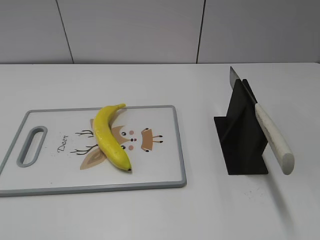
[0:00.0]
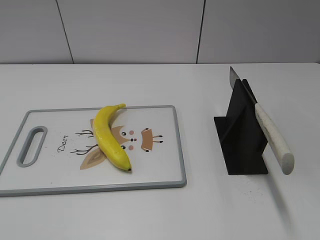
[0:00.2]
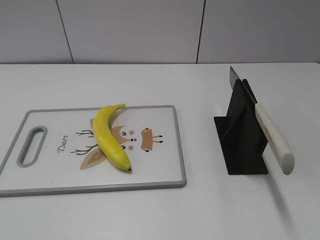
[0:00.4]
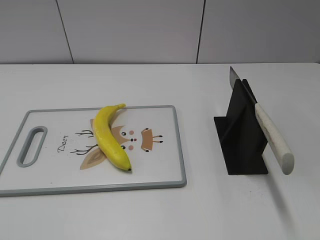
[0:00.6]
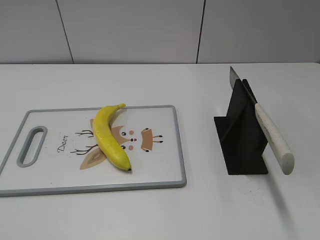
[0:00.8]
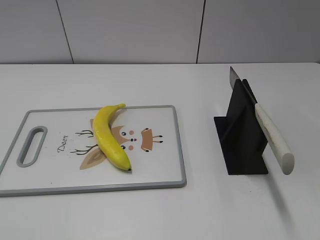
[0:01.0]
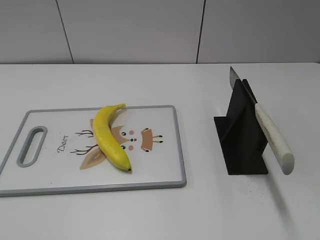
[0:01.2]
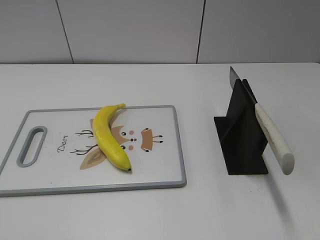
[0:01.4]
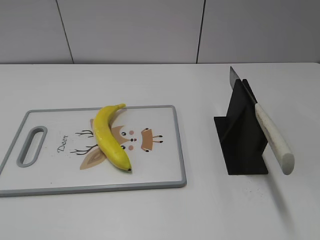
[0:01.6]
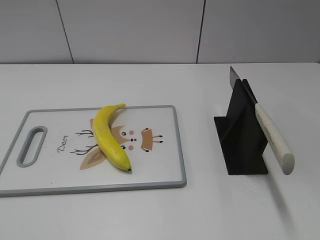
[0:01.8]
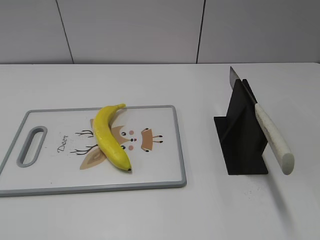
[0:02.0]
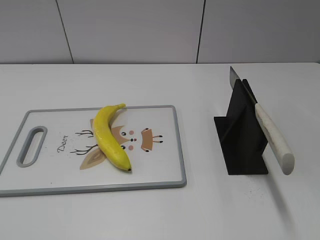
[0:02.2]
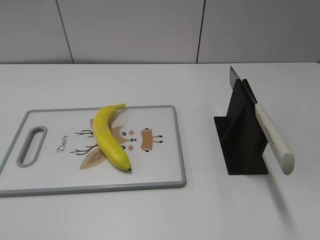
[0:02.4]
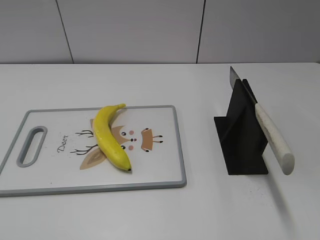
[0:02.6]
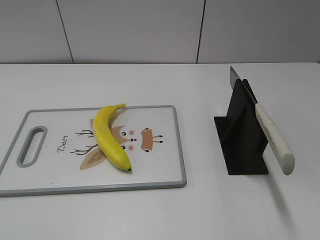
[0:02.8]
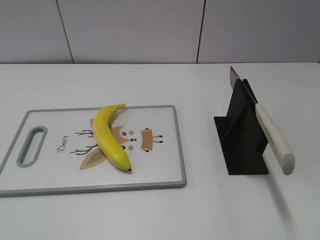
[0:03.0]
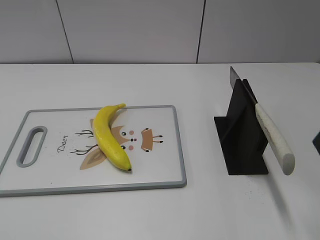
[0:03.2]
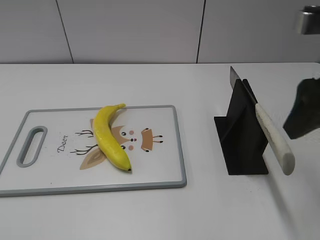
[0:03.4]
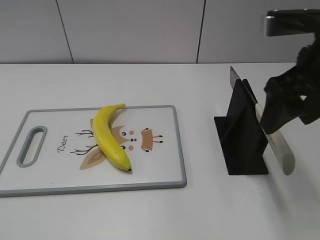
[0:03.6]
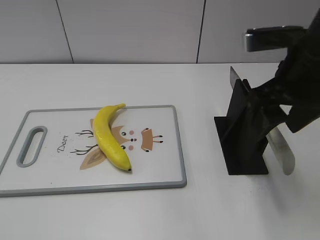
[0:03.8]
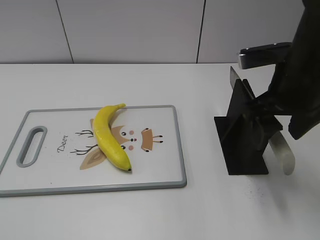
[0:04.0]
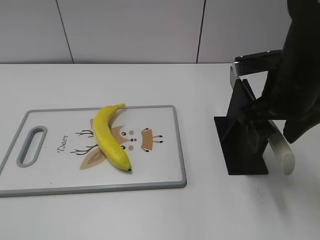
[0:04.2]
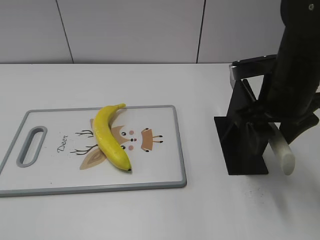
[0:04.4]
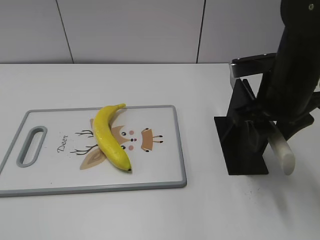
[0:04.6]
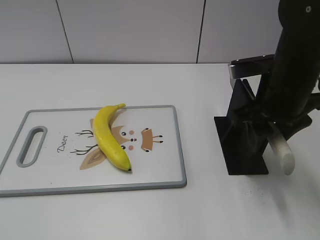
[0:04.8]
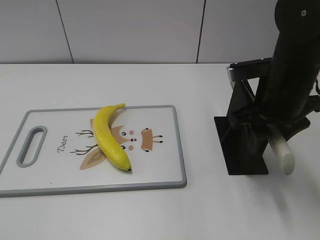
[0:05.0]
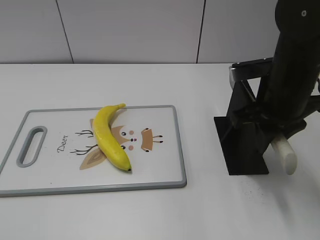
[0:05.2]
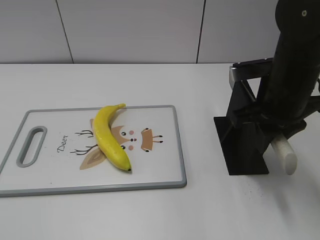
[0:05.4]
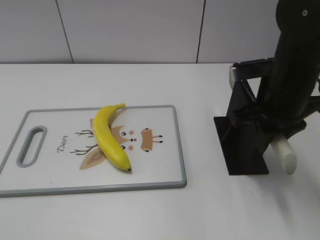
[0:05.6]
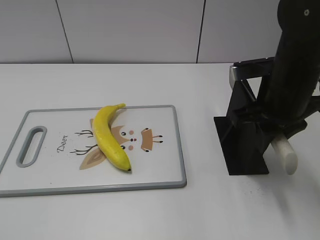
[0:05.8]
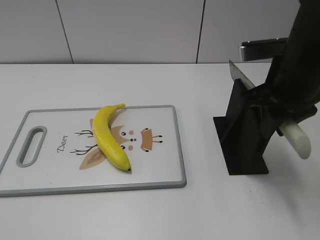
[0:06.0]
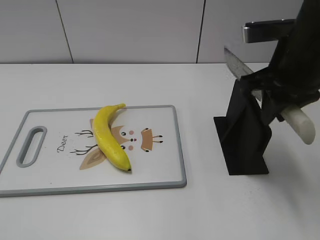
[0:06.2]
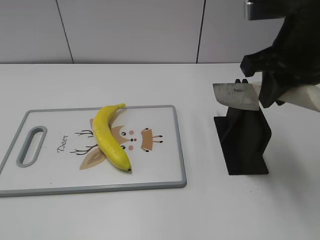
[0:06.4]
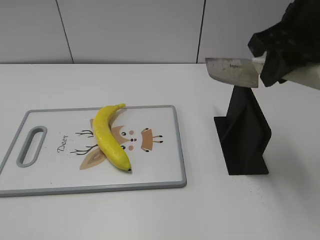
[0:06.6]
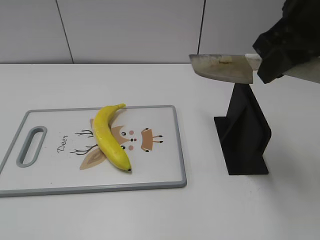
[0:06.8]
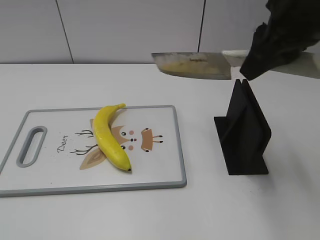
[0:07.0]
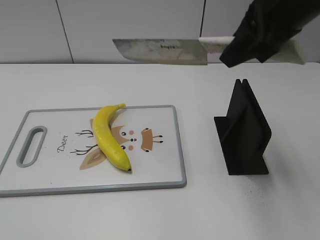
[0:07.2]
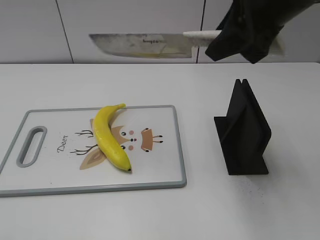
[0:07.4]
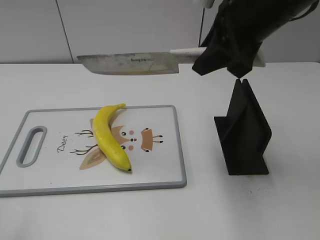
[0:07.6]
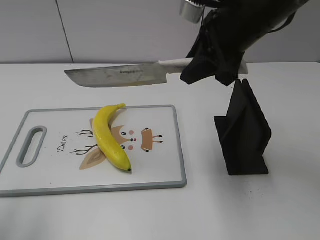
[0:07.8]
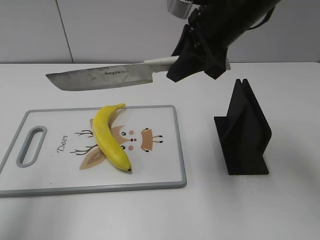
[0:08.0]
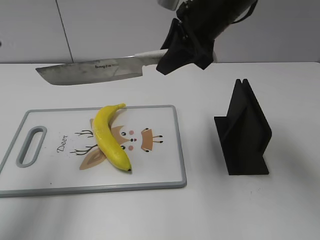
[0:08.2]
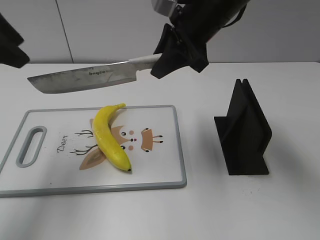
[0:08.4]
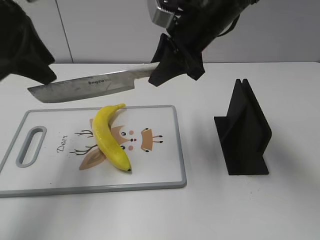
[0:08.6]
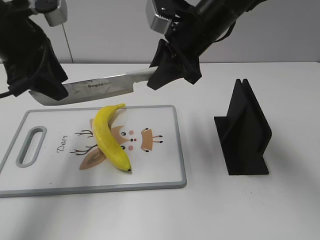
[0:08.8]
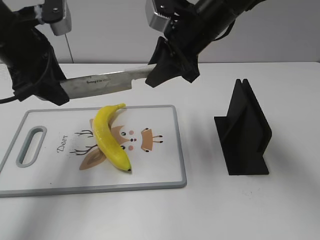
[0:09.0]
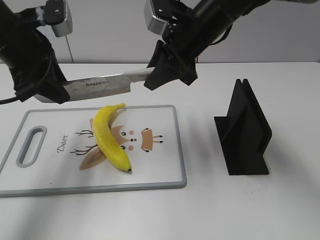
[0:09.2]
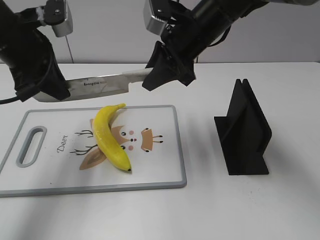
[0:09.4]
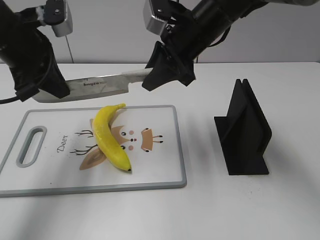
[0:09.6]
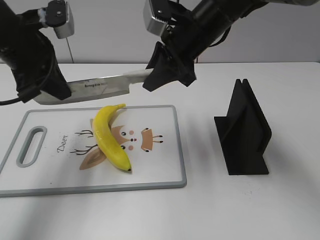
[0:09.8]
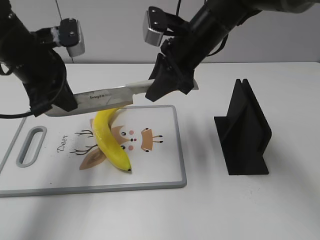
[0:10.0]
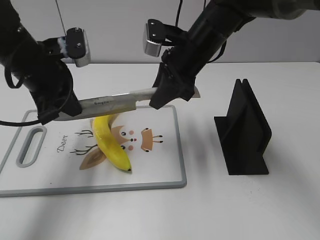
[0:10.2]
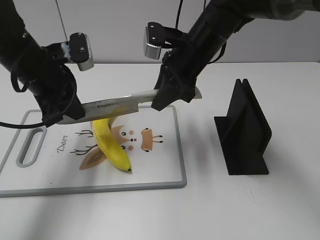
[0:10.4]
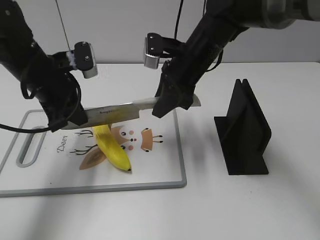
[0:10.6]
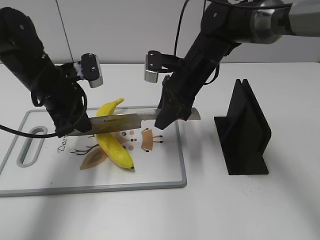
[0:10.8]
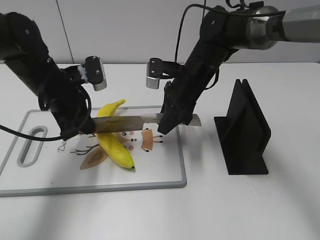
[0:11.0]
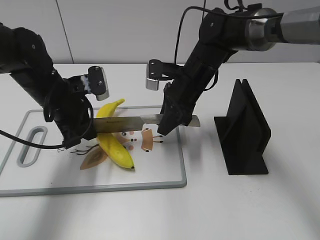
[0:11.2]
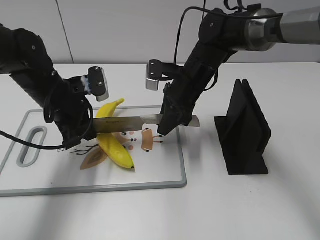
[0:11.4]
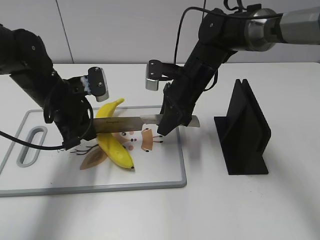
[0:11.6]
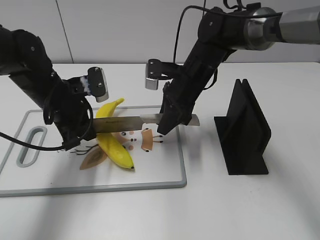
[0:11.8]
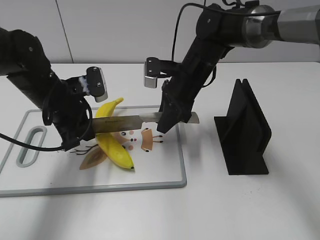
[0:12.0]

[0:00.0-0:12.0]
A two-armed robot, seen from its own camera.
Task of the whole recording: cut plastic banana.
Step, 0:00.0 to 0:06.4: Grab the knife handle with your right hand.
Step, 0:06.6 to 0:11.8: Lift the knife with your right hand.
0:03.0 to 0:04.4: The right gripper is displaced forward, to the left and downward by roughly 20 cm.
0:04.4 to 0:06.0: The right gripper closes.
0:06.0 to 0:07.6: The left gripper moves forward and upward, about 10 cm. The right gripper heads upward, covering some 5 cm.
0:07.6 to 0:09.0: The left gripper travels forward by roughly 25 cm, while the right gripper shifts some 10 cm forward, downward and to the left.
0:09.0 to 0:10.4: The left gripper moves downward, approximately 5 cm, and closes up.
0:10.4 to 0:12.0: The grippers both shift downward by some 5 cm.

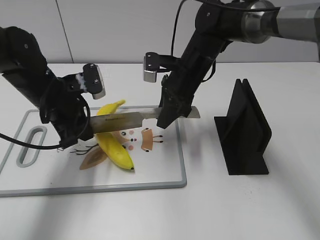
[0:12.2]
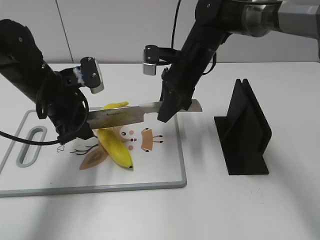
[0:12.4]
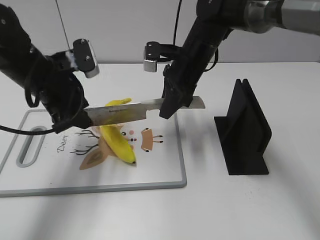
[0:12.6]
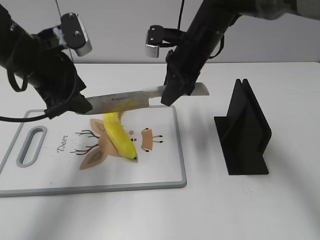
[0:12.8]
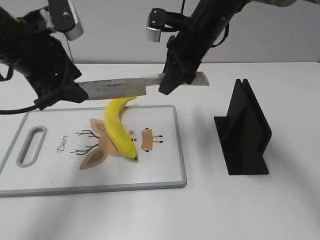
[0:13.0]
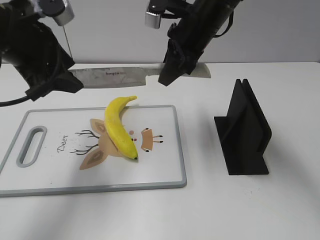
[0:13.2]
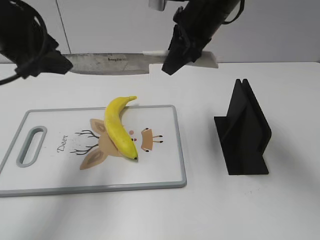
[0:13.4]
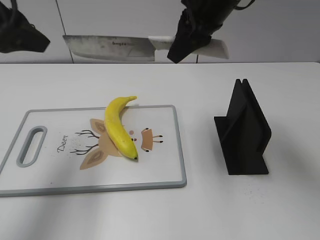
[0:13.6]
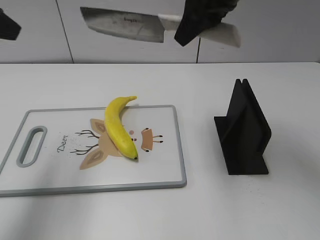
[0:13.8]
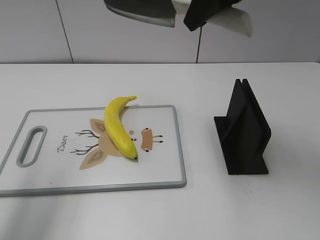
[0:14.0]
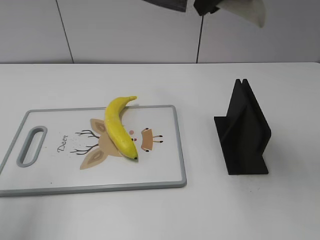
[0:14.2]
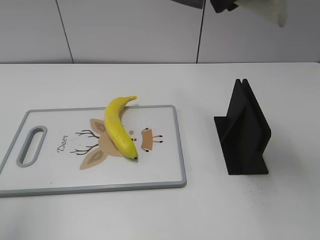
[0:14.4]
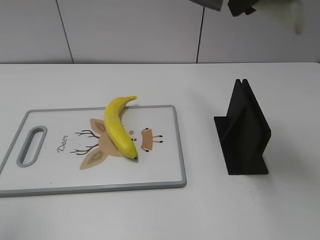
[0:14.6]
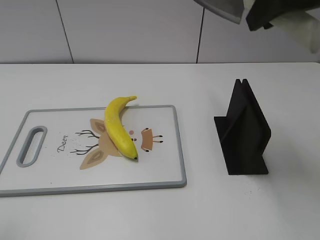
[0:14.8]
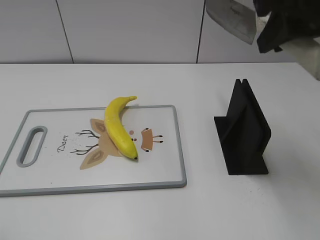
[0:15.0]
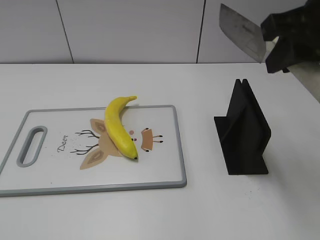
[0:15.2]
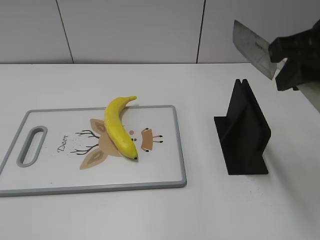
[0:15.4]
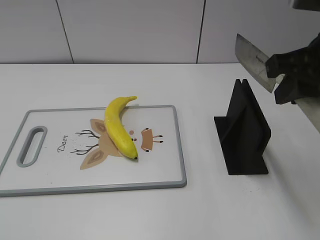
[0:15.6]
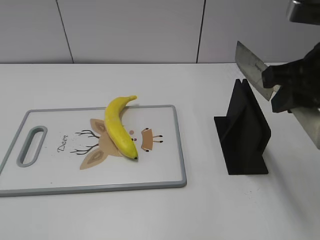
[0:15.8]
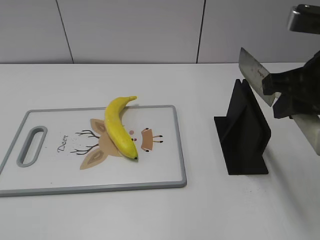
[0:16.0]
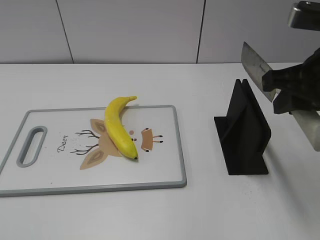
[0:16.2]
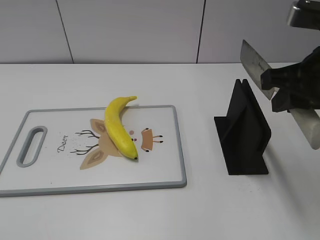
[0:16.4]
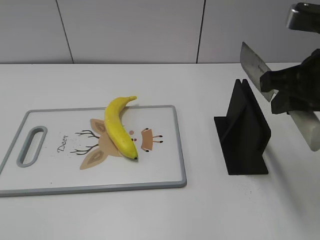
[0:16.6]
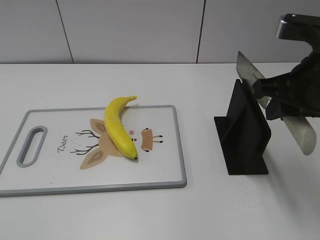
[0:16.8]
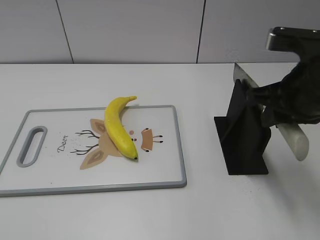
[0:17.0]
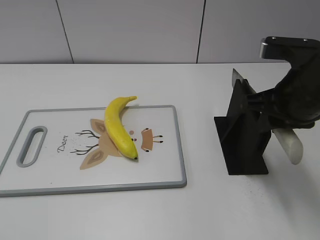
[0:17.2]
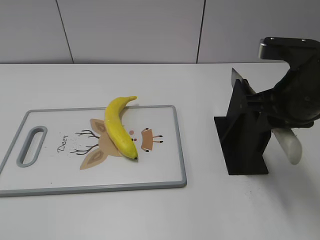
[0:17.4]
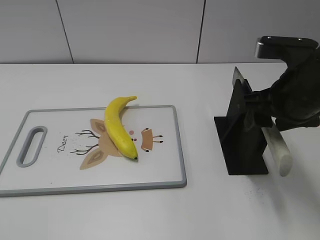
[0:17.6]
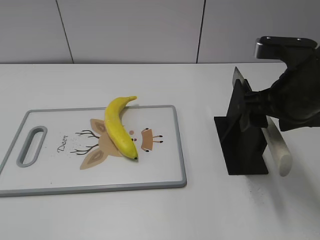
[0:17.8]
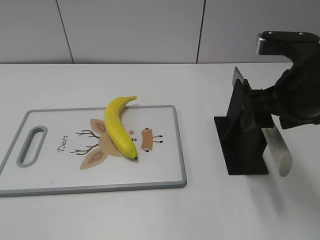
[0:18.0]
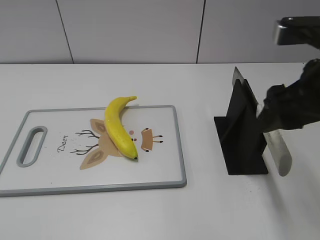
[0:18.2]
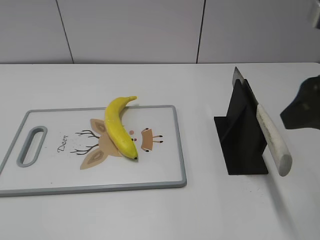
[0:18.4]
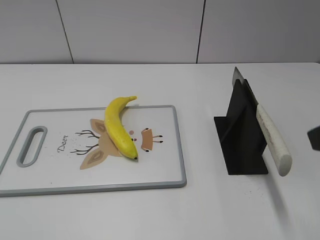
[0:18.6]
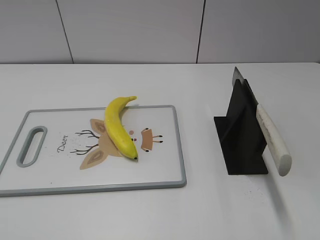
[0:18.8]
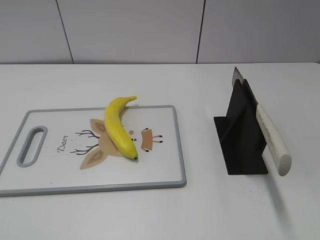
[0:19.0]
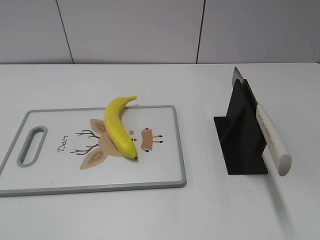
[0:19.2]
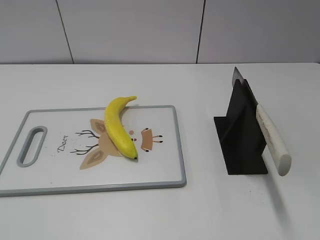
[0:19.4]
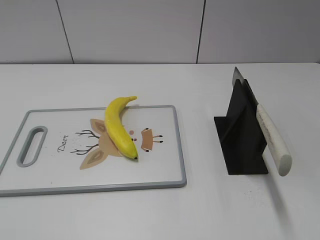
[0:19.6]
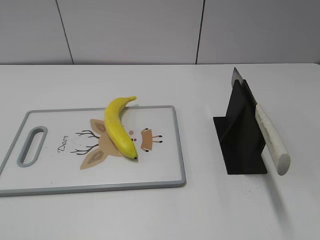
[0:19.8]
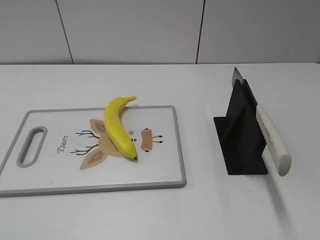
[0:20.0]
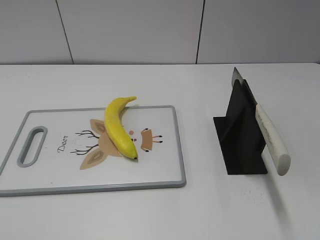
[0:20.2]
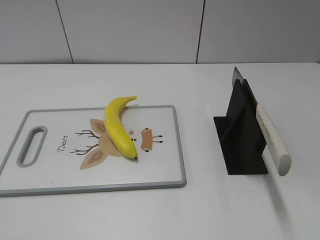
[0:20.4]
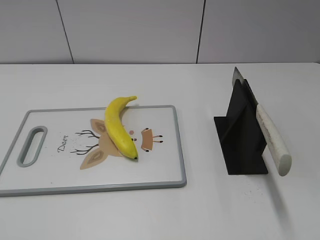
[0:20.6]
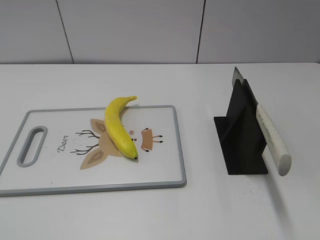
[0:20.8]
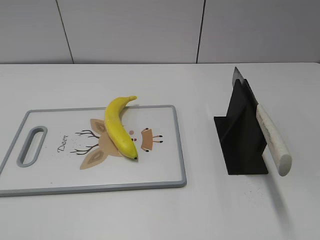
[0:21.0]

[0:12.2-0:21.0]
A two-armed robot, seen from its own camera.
Task of the whole recording: cut plastic banana.
Step, 0:12.2 to 0:14.4: Cut the banana with your right hand.
Step, 0:14.8 to 0:16.2: Lift the knife with your right hand.
Step, 0:16.4 to 0:21.0: Place the knife on the storage rack with your right hand.
0:12.2 to 0:13.6: Both grippers move upward, some 15 cm. The left gripper opens.
0:13.6 to 0:15.2: The left gripper heads backward, covering approximately 25 cm, while the right gripper travels backward and to the right by about 15 cm.
0:15.2 to 0:16.6: The right gripper goes roughly 5 cm downward.
0:16.6 to 0:18.0: The right gripper opens.
0:18.0 to 0:19.6: The right gripper goes approximately 25 cm backward and to the right.
